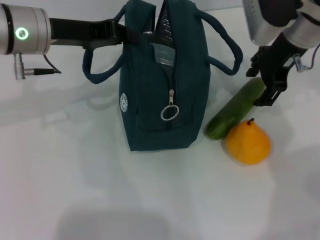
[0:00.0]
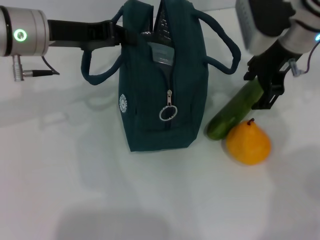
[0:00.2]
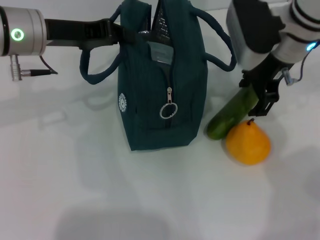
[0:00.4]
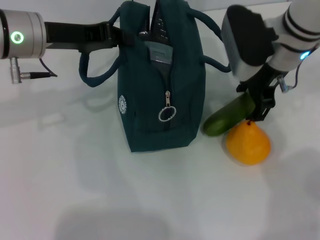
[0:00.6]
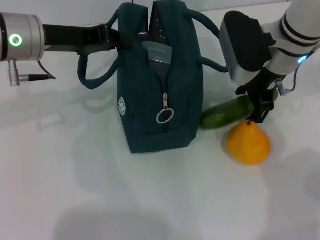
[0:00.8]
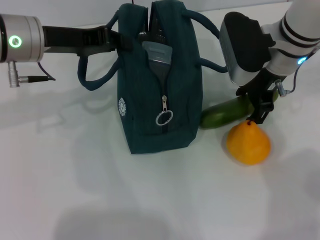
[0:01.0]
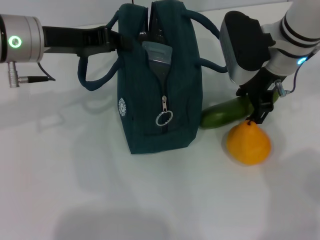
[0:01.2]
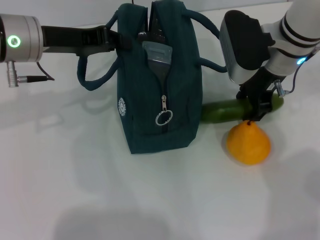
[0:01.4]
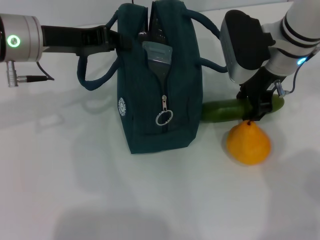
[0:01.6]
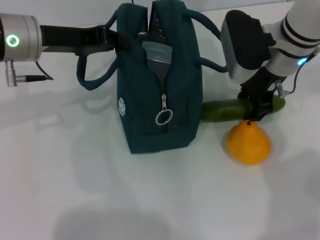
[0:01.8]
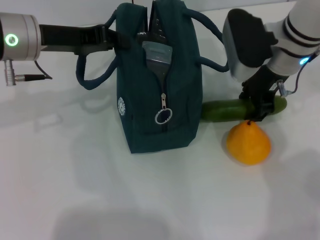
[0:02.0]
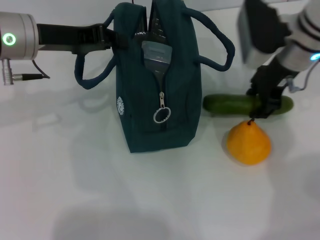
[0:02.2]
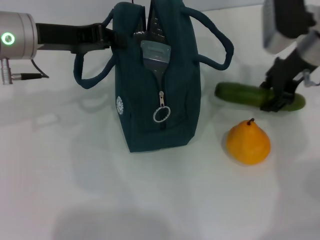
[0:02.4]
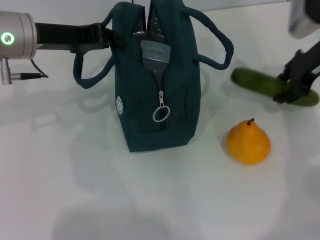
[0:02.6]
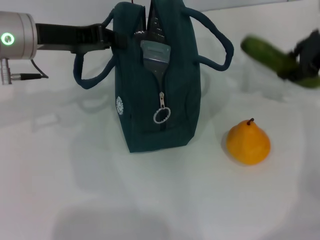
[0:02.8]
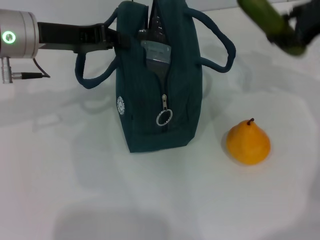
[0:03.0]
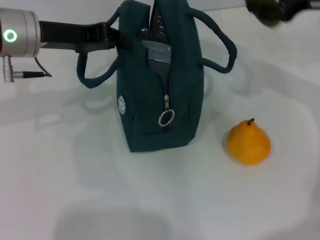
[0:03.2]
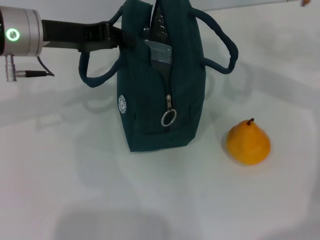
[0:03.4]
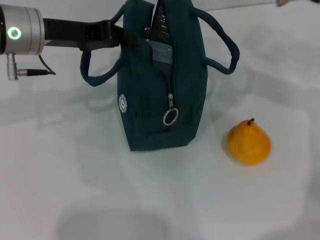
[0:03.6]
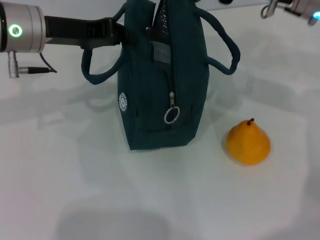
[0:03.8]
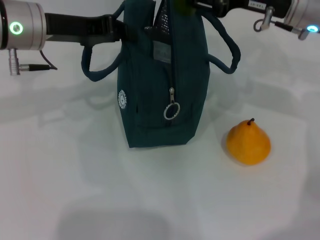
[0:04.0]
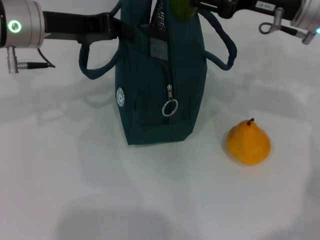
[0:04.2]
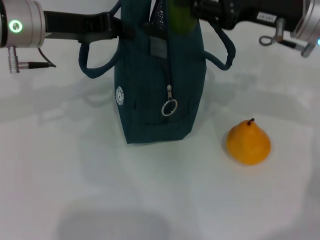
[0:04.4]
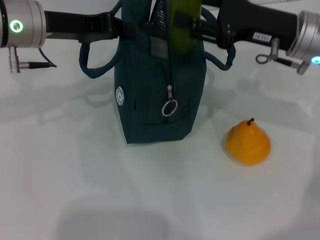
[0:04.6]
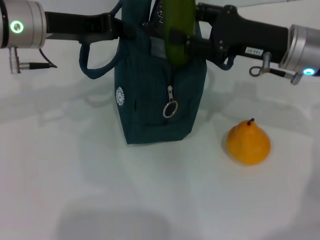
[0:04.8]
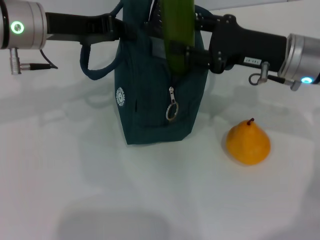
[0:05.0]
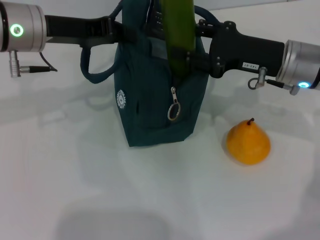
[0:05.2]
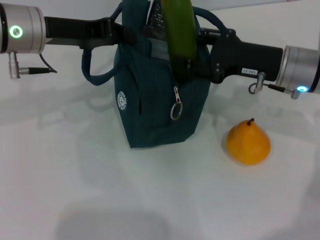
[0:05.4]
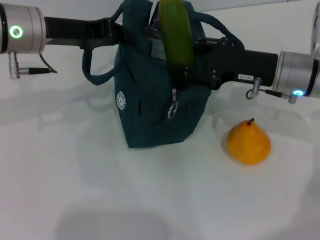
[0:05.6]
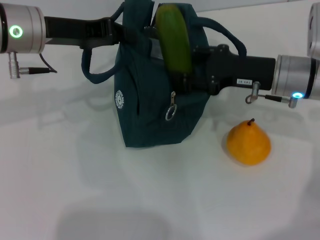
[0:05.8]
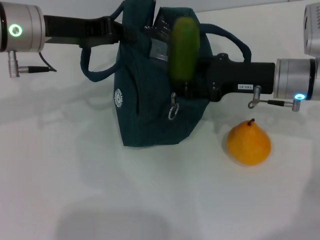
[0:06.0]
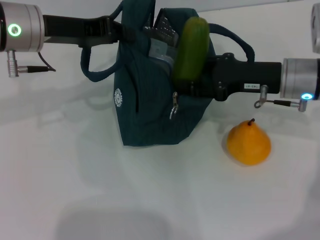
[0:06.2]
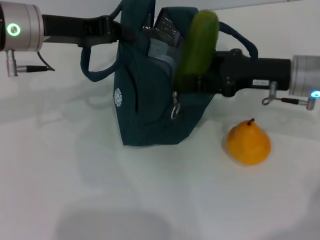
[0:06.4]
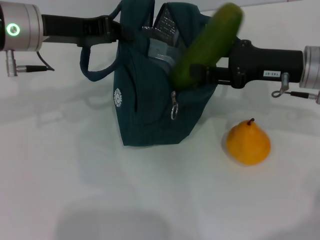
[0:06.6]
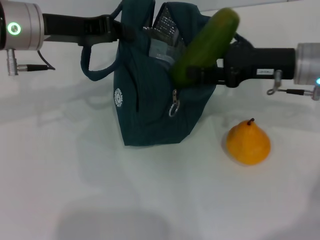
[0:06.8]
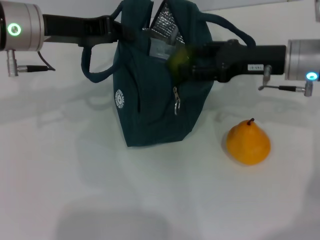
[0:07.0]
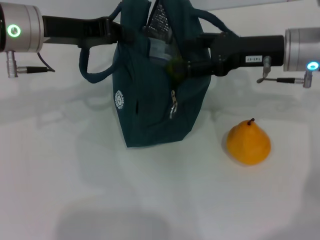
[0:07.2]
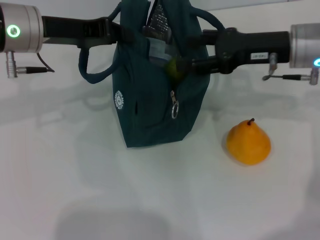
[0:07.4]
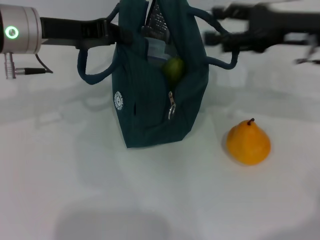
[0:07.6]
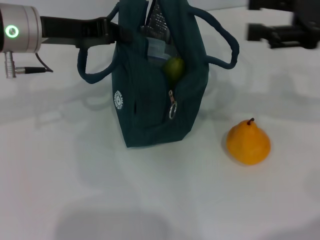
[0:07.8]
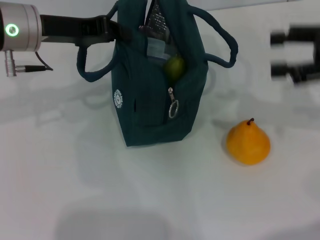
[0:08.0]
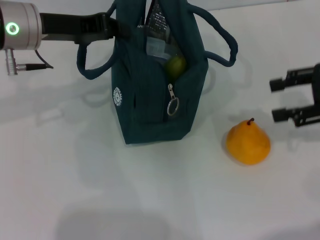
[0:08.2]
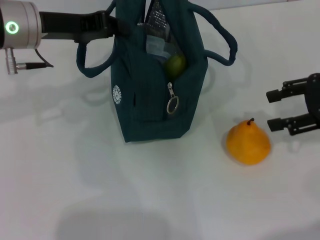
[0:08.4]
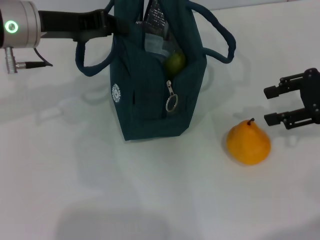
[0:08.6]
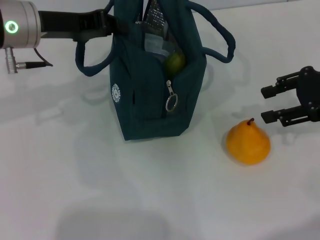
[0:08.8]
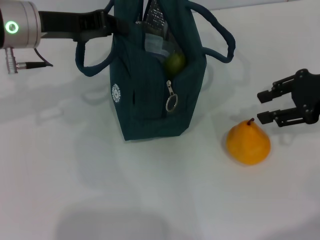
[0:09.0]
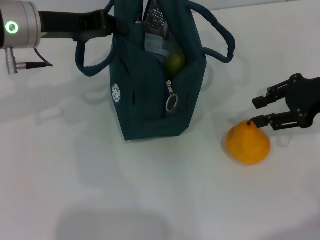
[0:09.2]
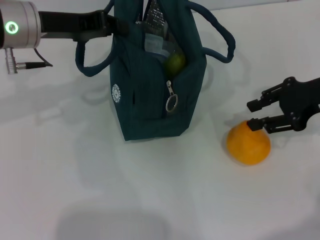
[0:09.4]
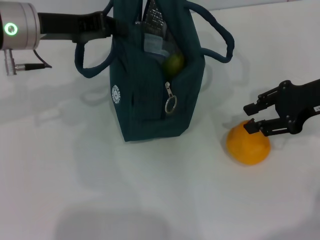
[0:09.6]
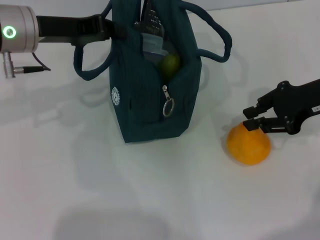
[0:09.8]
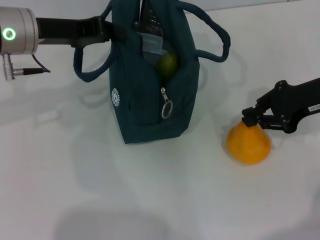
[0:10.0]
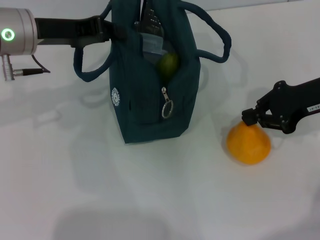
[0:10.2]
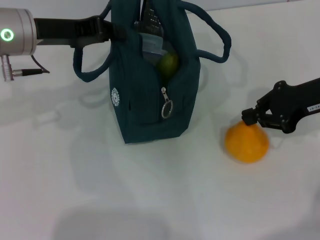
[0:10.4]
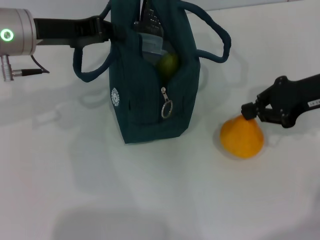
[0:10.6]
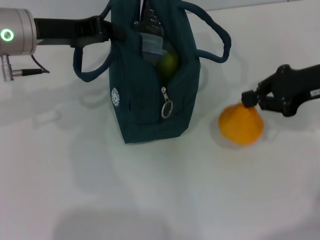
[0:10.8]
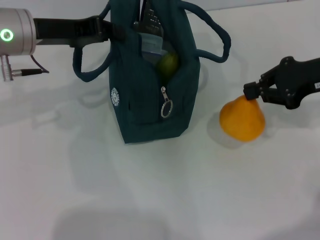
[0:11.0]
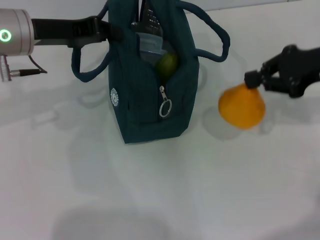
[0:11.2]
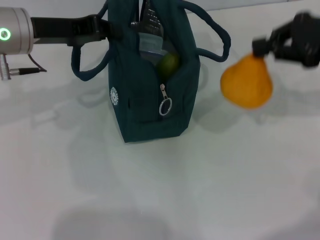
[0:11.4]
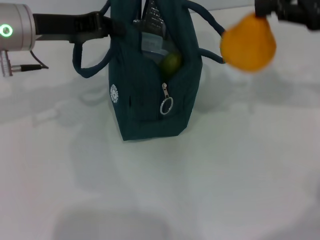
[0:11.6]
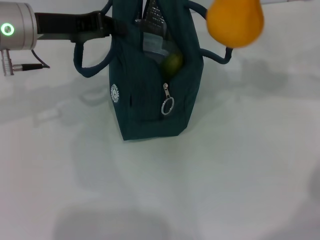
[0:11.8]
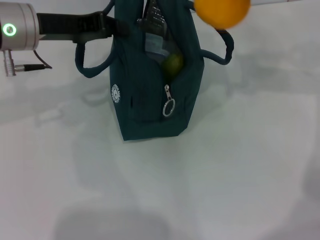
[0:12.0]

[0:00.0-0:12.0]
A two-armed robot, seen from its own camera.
Step, 0:01.8 to 0:07.0: Put the cucumber into the lunch bag with your right hand.
Step, 0:07.4 to 0:10.4: Grab the pear with your right hand.
0:00.0 to 0:01.6: The right gripper ends up some 5 cm from where it was.
0:01.6 to 0:03.0: The right gripper travels to the right and upward by approximately 15 cm.
0:03.0 to 0:04.4: The right gripper is displaced to the left by some 10 cm.
0:04.4 to 0:06.0: The right gripper heads downward, covering some 10 cm.
0:06.0 to 0:07.6: The right gripper heads upward and to the right, covering about 10 cm.
0:07.6 to 0:09.0: The right gripper changes place by roughly 5 cm.
0:09.0 to 0:10.4: The right gripper closes.
0:10.4 to 0:12.0: The right gripper travels upward by roughly 15 cm.

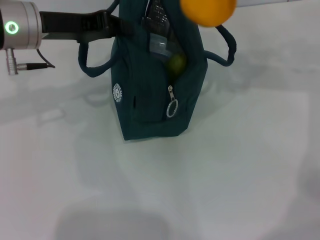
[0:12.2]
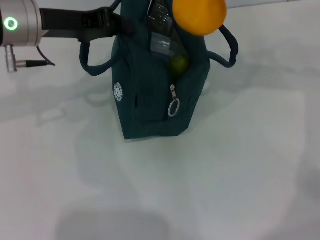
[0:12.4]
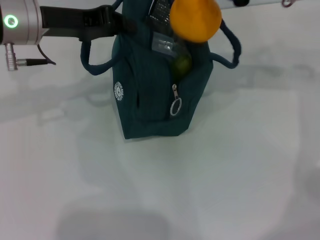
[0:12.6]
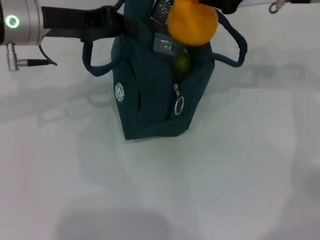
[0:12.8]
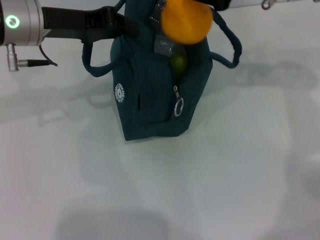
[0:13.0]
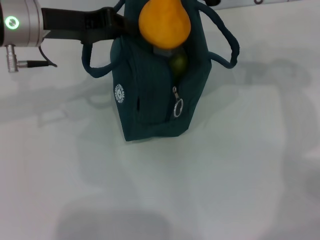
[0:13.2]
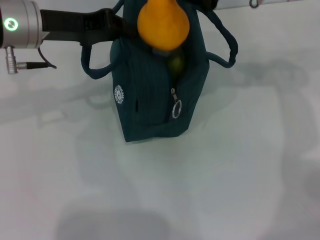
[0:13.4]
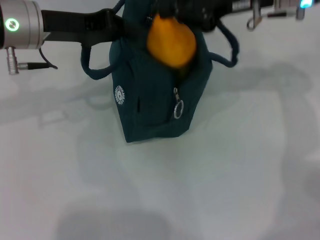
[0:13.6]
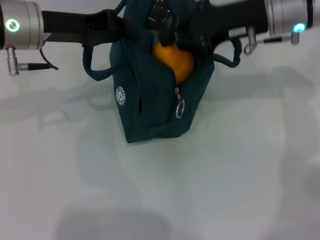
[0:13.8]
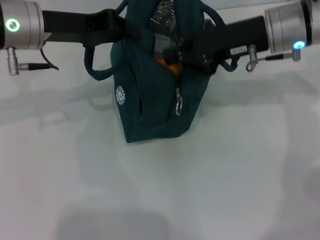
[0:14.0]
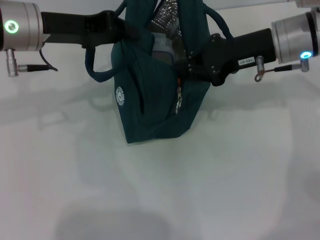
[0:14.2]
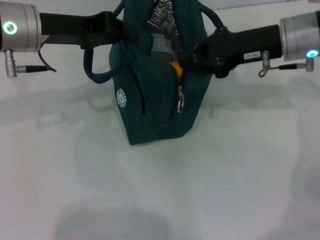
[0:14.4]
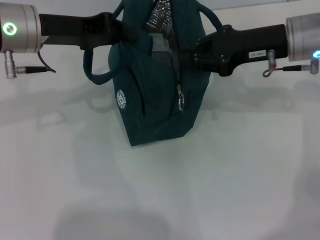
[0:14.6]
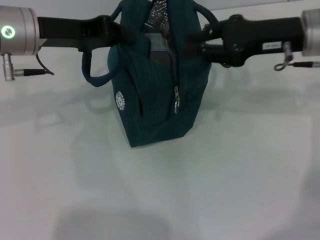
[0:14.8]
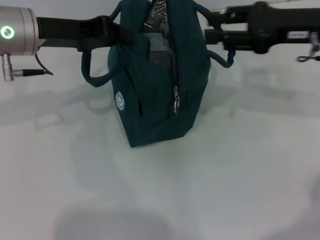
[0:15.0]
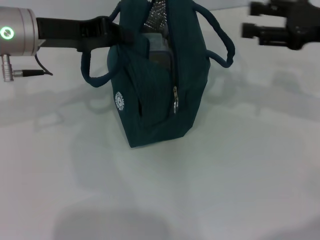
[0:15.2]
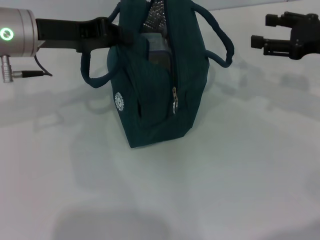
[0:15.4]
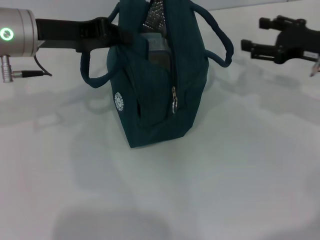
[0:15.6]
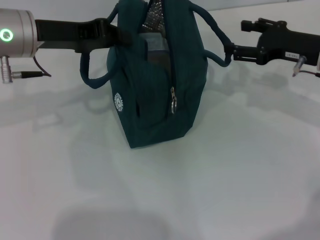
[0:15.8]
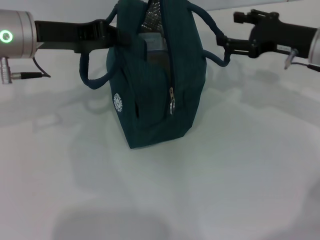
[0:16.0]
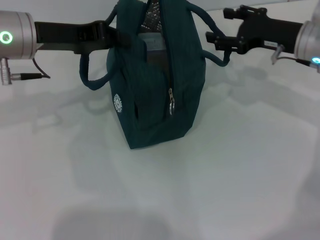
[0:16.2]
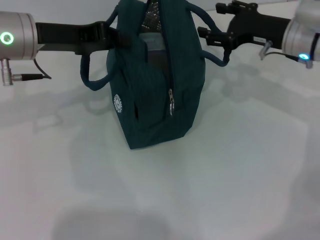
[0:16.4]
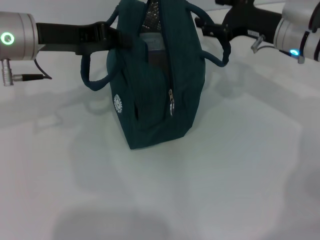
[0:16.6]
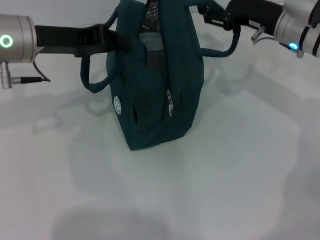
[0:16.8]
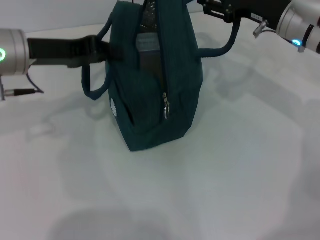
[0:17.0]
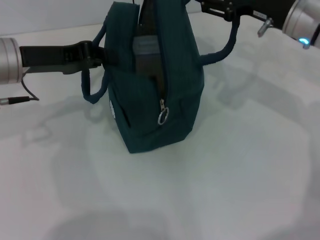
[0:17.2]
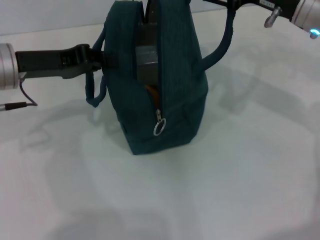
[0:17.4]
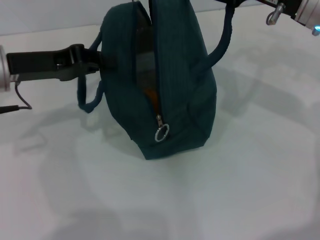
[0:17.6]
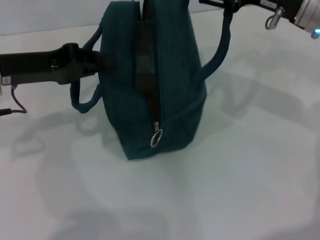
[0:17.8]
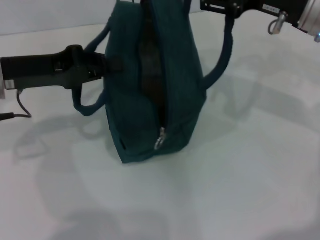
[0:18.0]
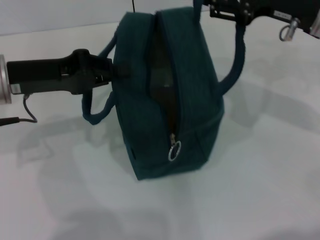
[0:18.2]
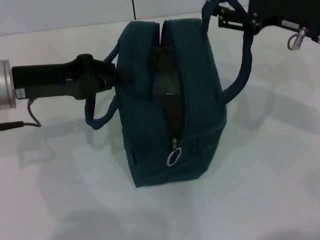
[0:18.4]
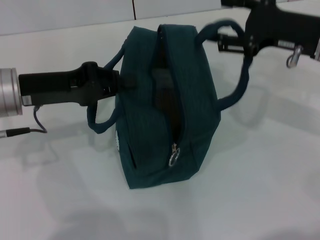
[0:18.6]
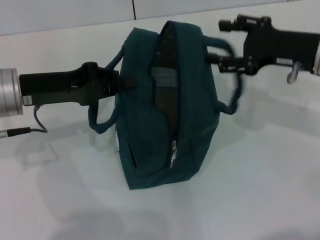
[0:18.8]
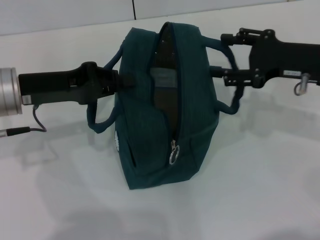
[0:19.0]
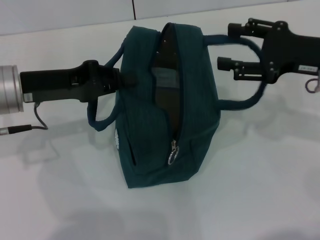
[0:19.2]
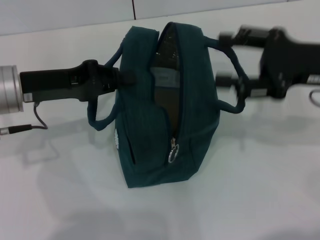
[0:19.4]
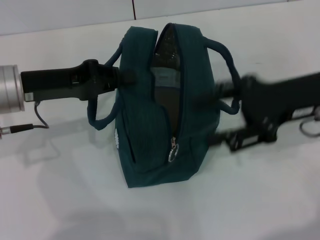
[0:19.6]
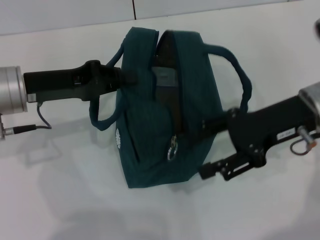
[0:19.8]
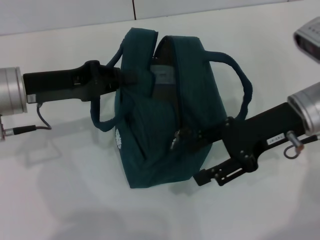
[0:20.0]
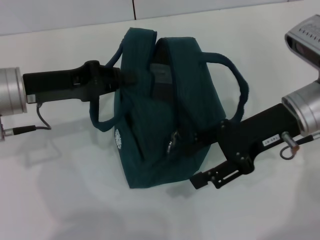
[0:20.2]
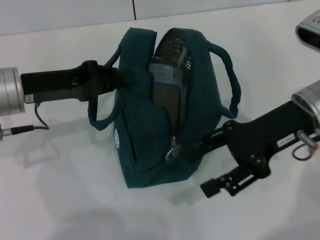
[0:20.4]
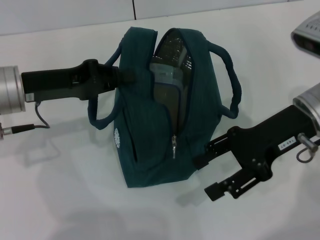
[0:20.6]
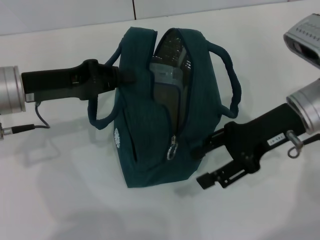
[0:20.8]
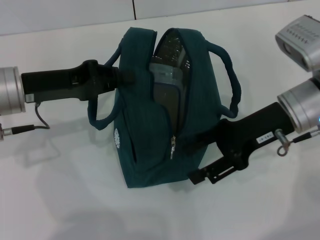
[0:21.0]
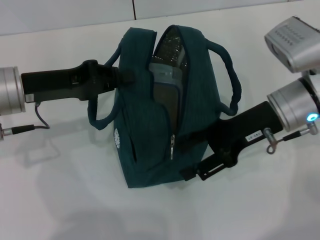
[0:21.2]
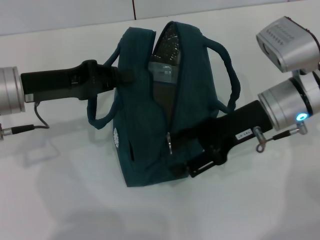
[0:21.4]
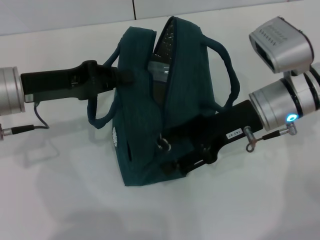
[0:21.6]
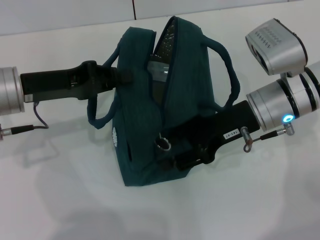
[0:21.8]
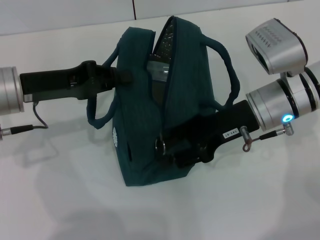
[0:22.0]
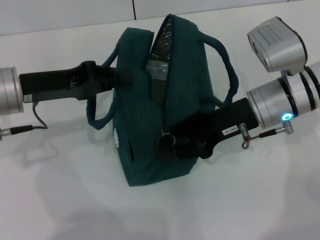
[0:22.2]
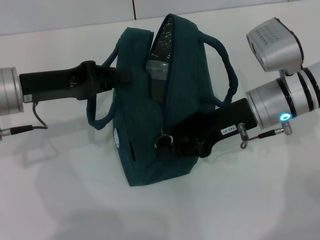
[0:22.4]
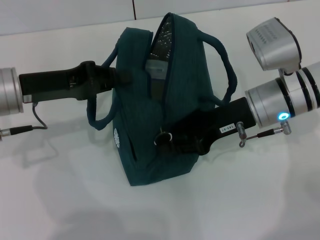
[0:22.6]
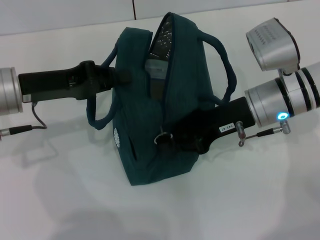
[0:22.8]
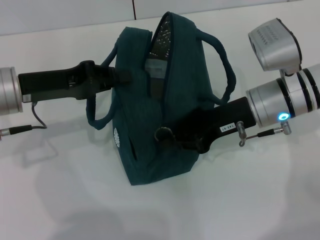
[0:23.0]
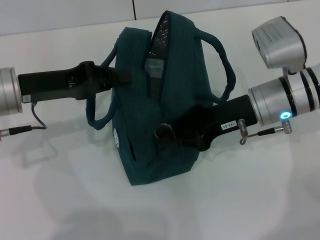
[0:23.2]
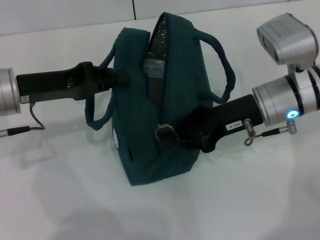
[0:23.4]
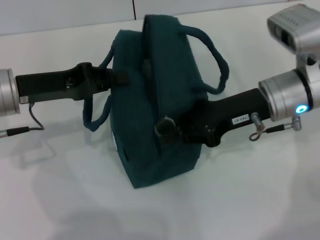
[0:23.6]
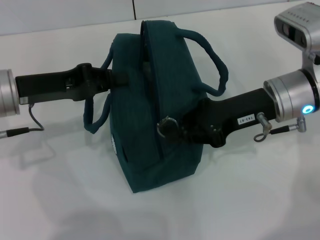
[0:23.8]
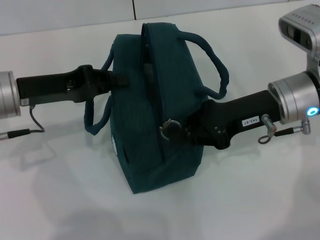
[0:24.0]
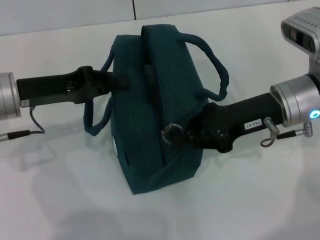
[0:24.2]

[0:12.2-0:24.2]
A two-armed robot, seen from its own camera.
Step, 0:14.6 to 0:18.8: Hold the lunch bag with your right hand.
0:12.2 to 0:13.8: The right gripper heads downward and to the left, covering roughly 10 cm.
0:13.8 to 0:15.2: The right gripper goes some 15 cm to the right and backward, and opens its fingers.
0:15.2 to 0:16.6: The right gripper shifts about 10 cm forward, to the left and downward, and opens.
0:16.6 to 0:18.2: The right gripper moves upward and backward, roughly 10 cm, while the left gripper is displaced backward by approximately 5 cm.
0:18.2 to 0:19.8: The right gripper ends up roughly 5 cm from where it was.
0:19.8 to 0:21.2: The grippers make only small movements.
0:21.2 to 0:22.6: The right gripper closes up.
